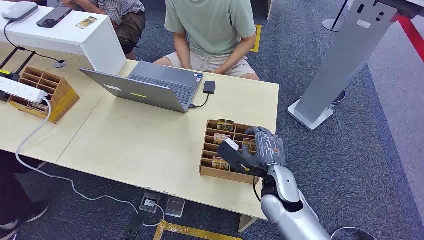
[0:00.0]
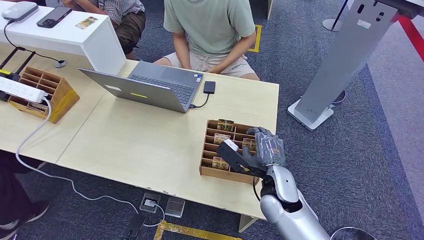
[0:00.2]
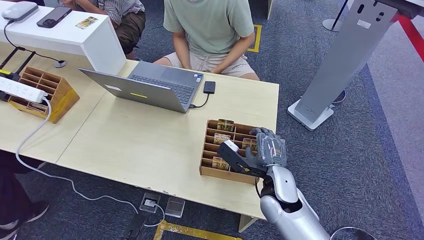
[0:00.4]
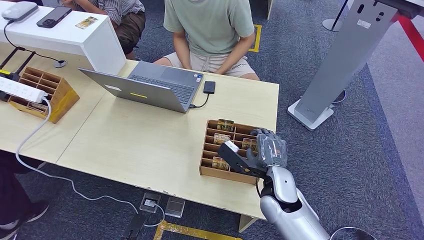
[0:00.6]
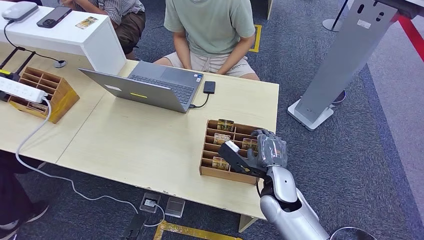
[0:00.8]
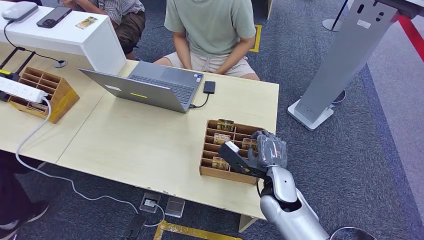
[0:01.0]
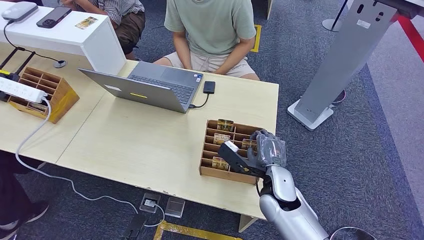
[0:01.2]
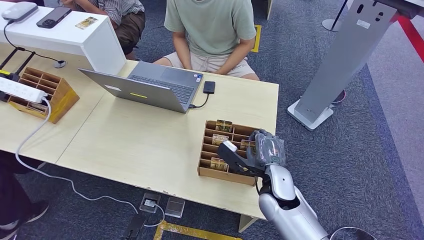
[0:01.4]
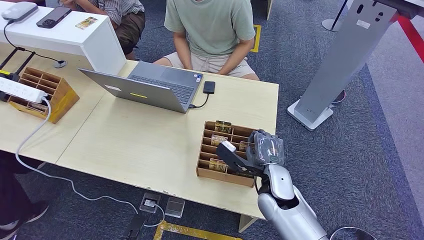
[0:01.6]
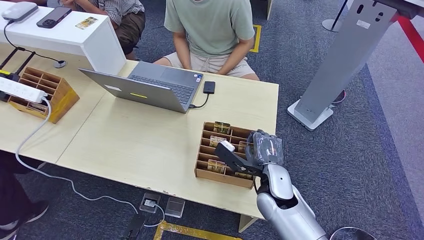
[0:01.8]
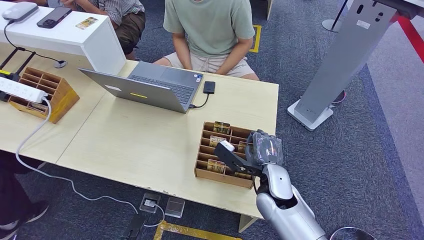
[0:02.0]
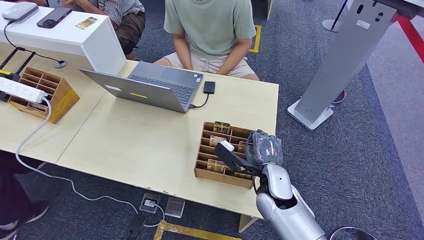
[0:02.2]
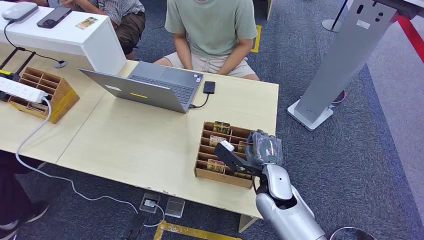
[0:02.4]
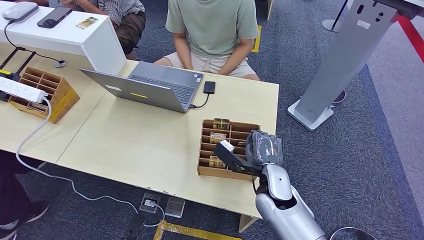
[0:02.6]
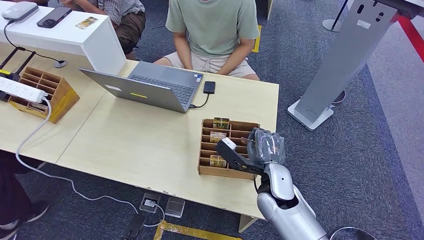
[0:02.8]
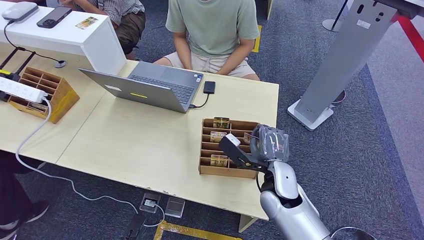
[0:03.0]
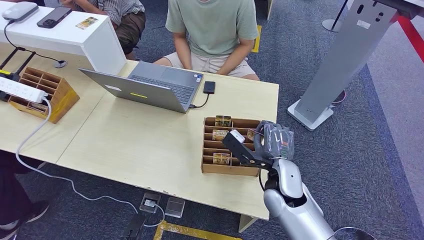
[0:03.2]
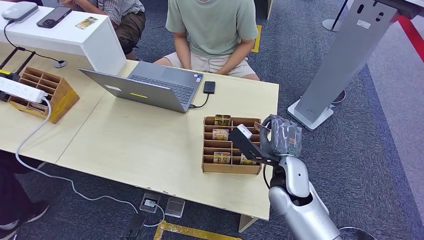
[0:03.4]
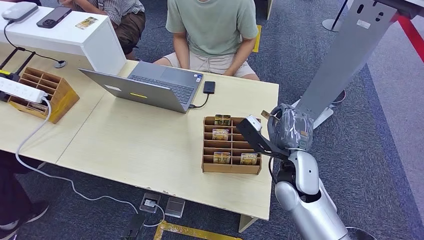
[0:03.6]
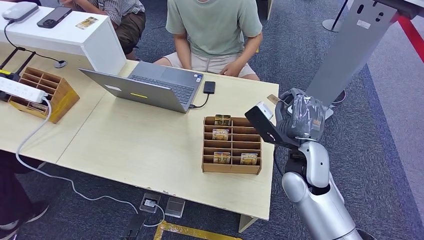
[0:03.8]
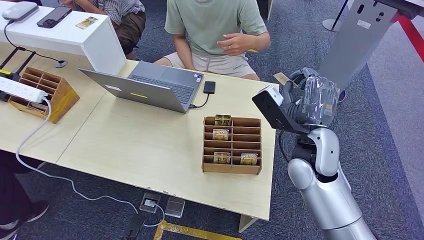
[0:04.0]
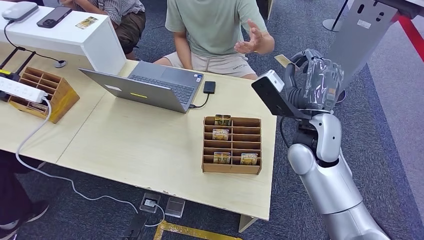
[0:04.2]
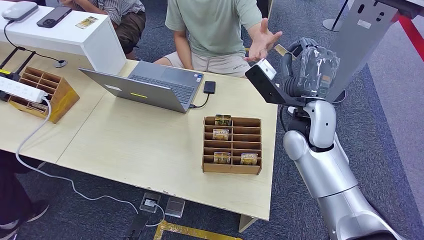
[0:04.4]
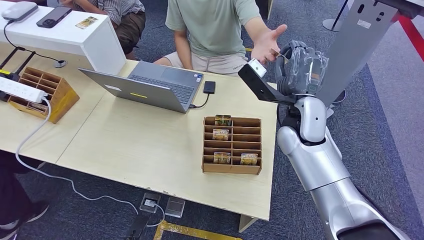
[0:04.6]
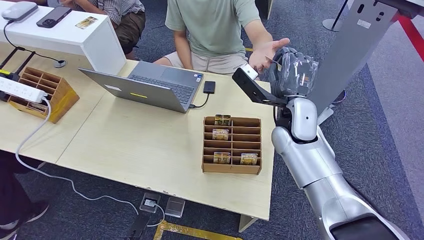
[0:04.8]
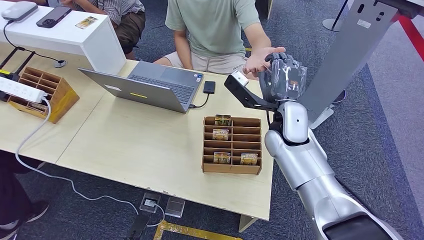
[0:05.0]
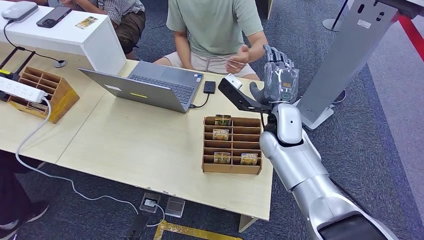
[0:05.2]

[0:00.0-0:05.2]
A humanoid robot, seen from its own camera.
Step, 0:00.0 to 0:03.6: Pick up the key card from the card box.
Step, 0:04.6 to 0:05.2: Hand the key card to the target.
0:01.8 to 0:03.4: The hands make only small movements.
0:03.4 to 0:05.2: The right hand goes some 10 cm forward and upward.

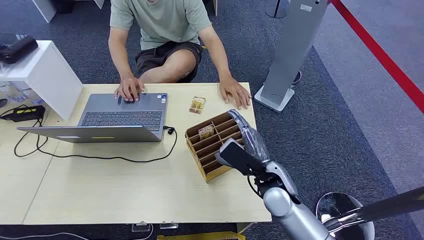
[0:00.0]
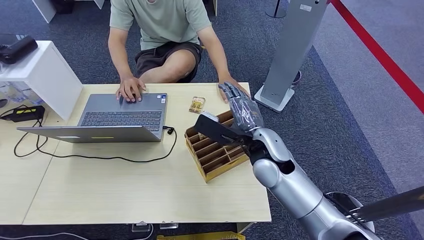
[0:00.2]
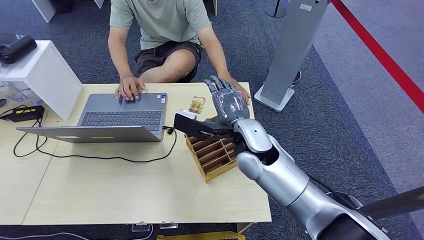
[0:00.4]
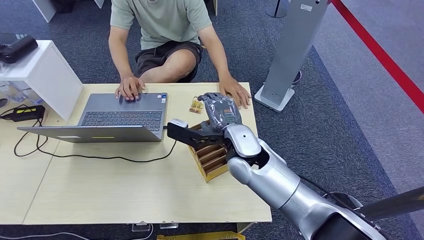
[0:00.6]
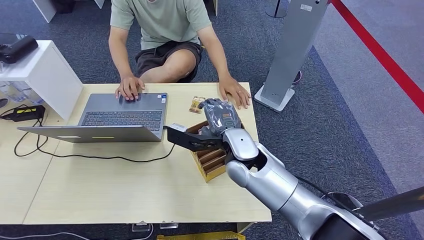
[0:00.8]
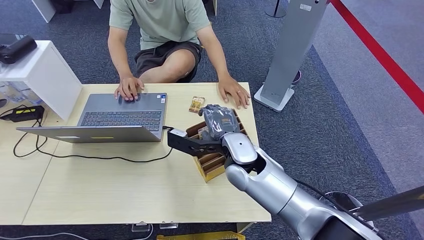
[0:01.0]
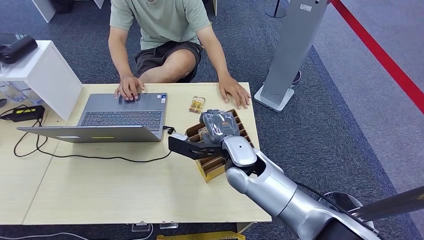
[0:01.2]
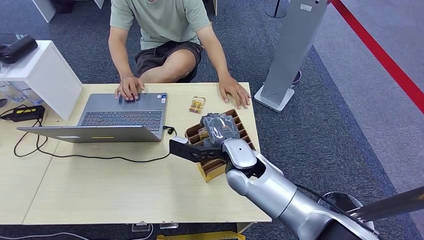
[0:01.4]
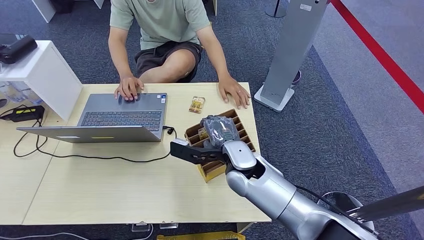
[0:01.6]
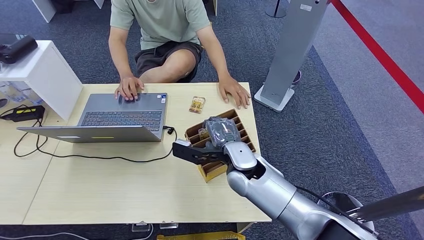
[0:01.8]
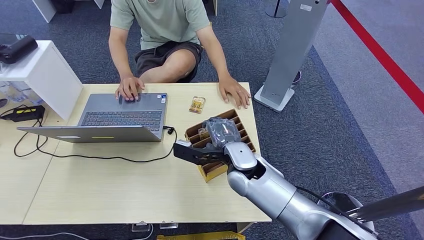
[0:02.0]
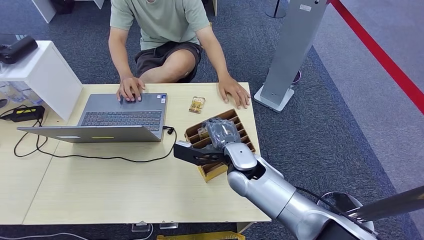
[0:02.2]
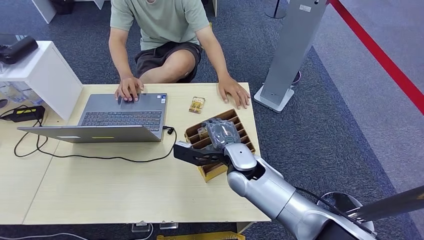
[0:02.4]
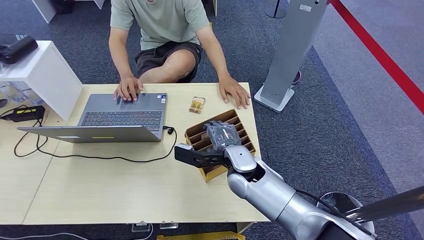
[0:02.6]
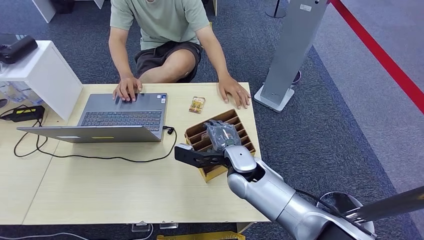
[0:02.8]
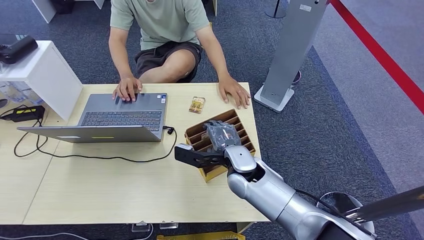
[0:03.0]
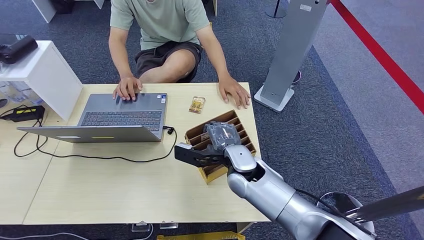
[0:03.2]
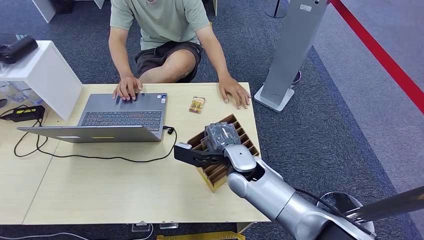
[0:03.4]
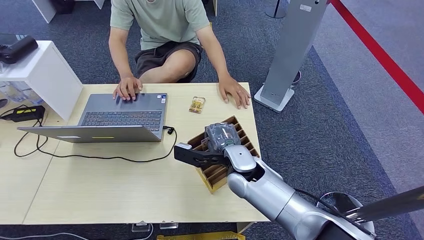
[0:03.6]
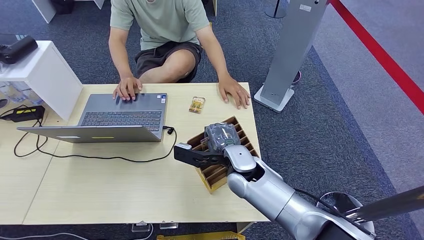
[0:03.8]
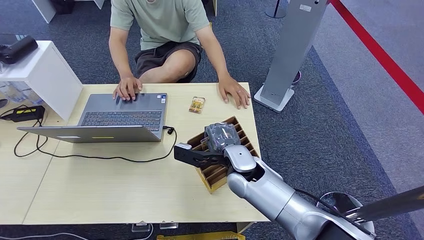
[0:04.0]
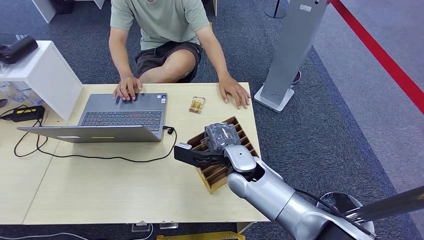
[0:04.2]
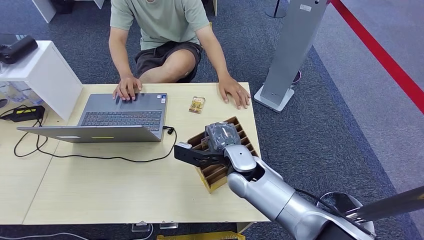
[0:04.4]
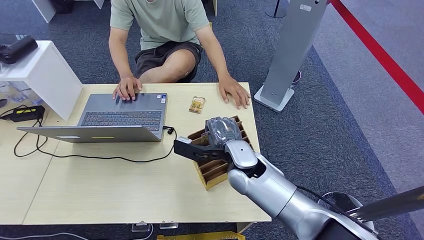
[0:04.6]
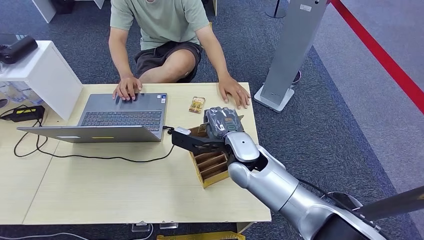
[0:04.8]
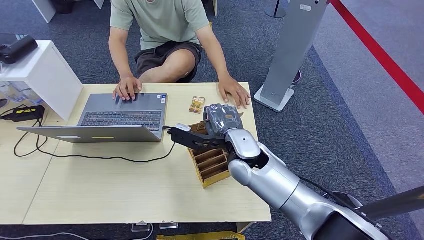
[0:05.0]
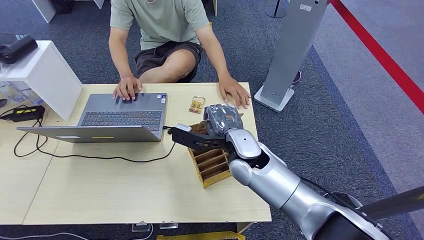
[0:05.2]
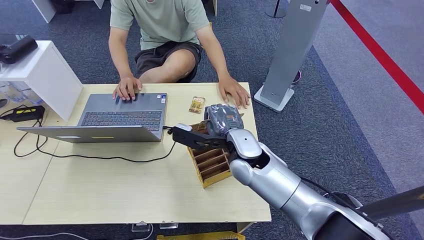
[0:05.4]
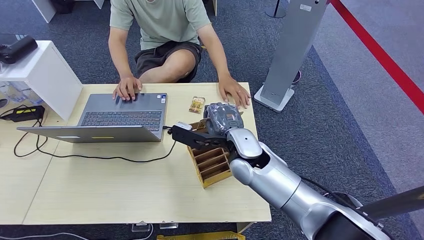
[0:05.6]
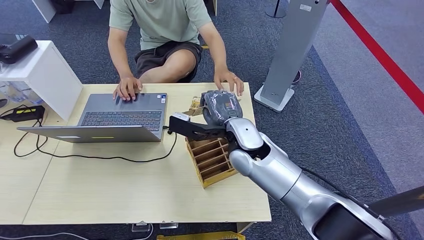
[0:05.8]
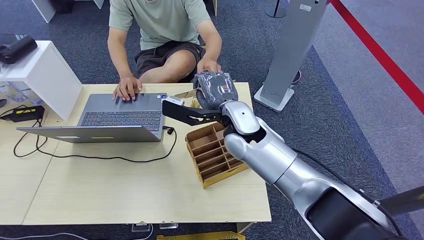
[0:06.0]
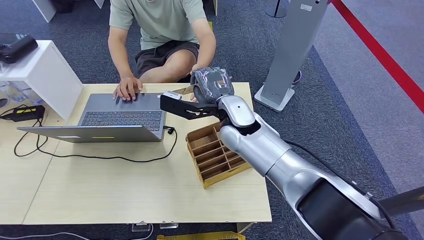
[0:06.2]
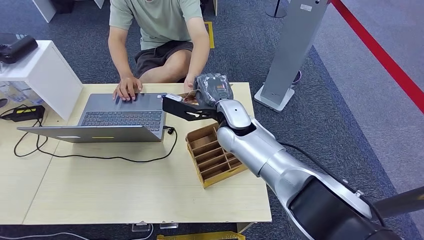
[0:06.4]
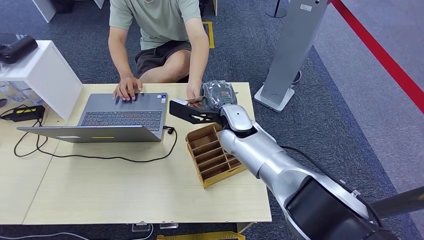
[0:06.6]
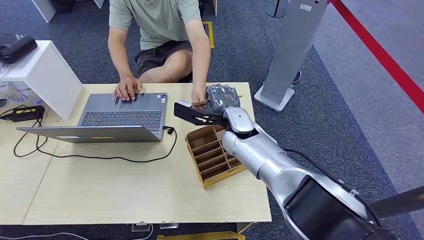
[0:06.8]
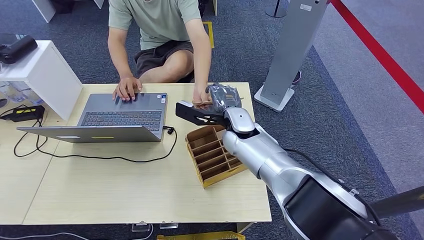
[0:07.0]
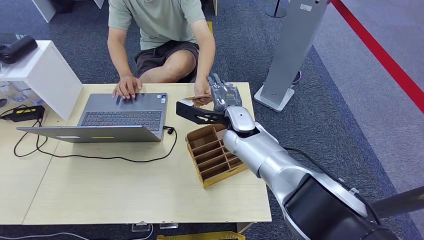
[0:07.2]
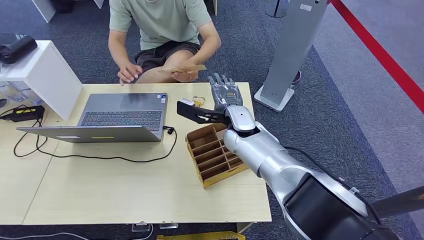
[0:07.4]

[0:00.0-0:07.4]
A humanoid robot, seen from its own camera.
Step, 0:00.0 to 0:05.8: Pick up the key card from the card box.
Step, 0:06.0 to 0:07.2: Hand the key card to the target.
0:01.4 to 0:03.0: There are only small adjustments of the hands.
0:03.0 to 0:04.4: The two hands keep their place.
0:04.4 to 0:06.0: The right hand is displaced upward by some 10 cm.
0:06.0 to 0:07.4: The right hand is displaced downward by some 5 cm.
